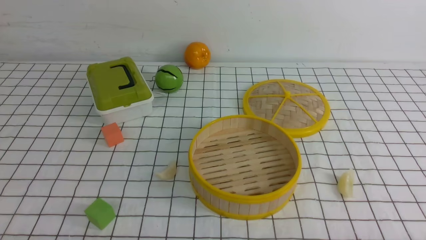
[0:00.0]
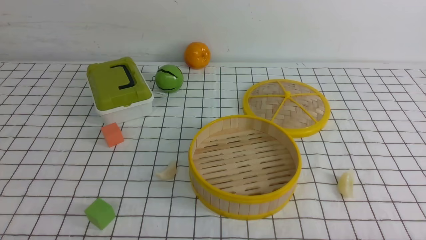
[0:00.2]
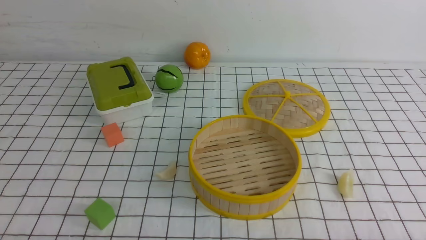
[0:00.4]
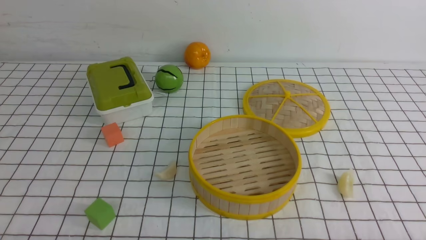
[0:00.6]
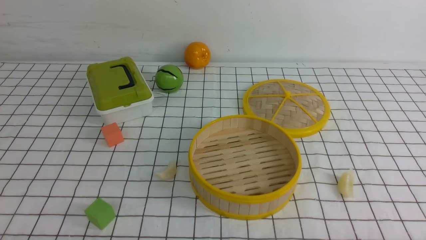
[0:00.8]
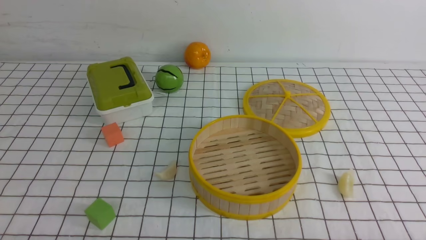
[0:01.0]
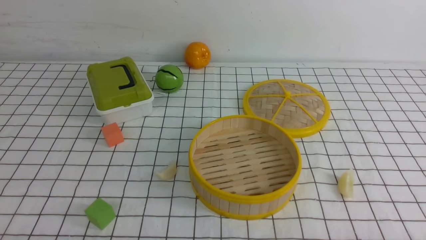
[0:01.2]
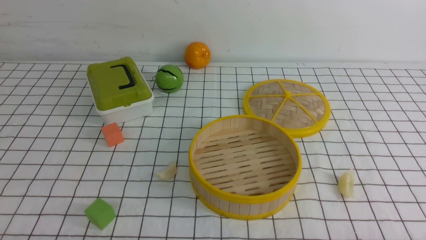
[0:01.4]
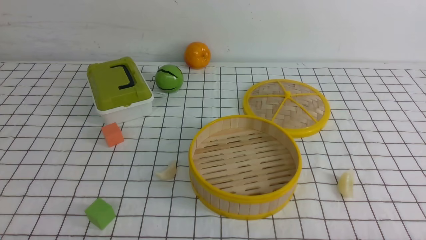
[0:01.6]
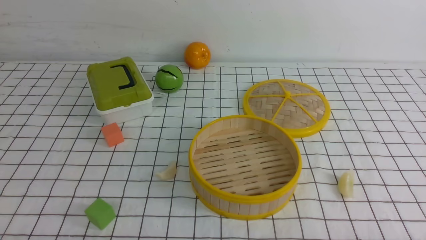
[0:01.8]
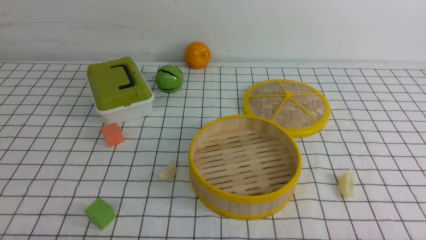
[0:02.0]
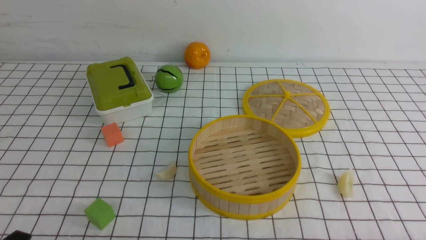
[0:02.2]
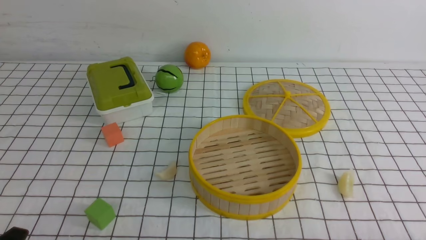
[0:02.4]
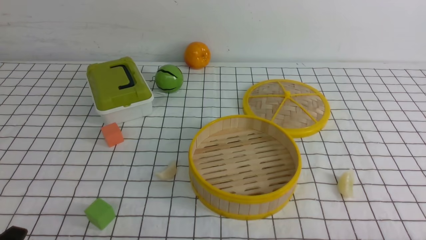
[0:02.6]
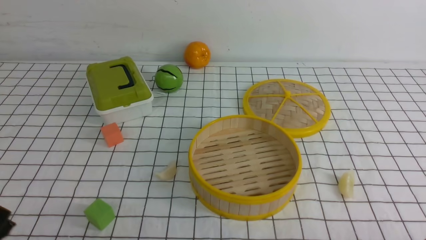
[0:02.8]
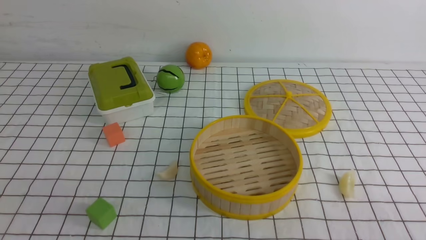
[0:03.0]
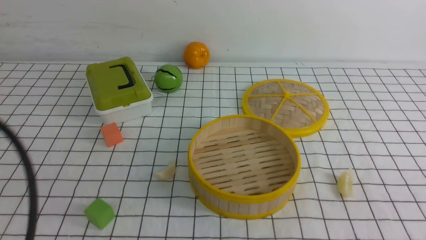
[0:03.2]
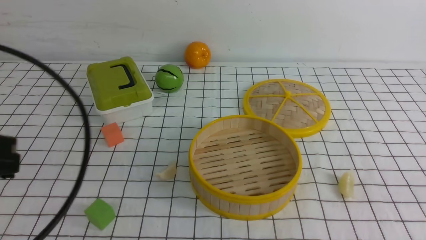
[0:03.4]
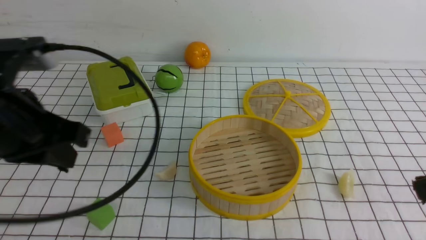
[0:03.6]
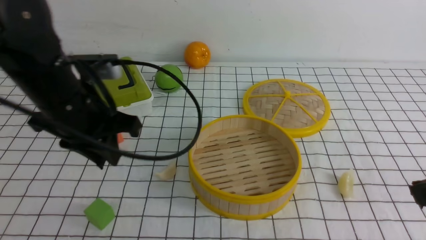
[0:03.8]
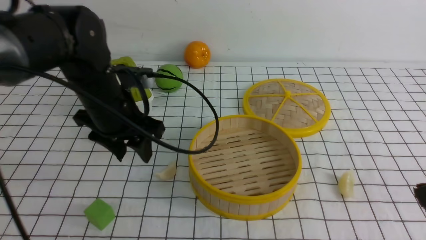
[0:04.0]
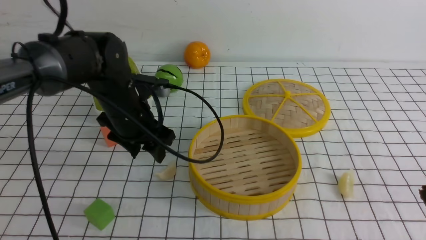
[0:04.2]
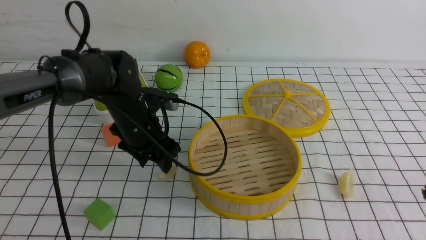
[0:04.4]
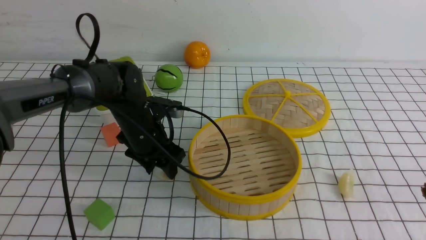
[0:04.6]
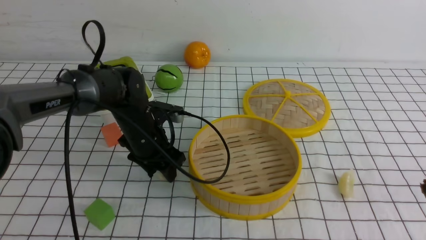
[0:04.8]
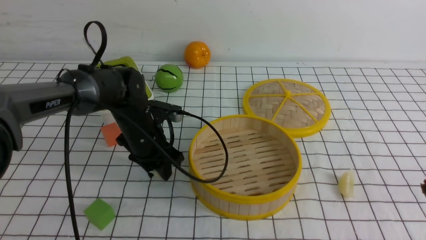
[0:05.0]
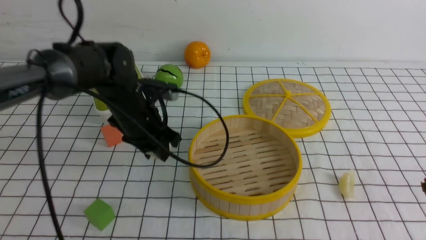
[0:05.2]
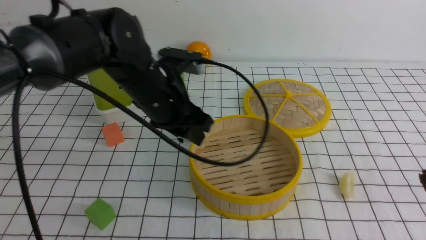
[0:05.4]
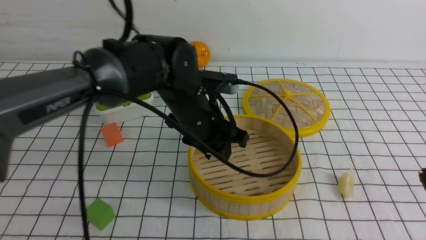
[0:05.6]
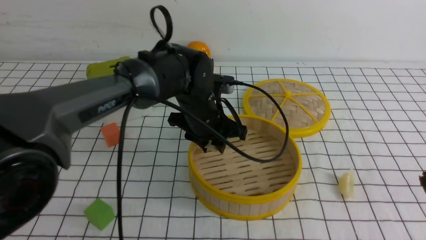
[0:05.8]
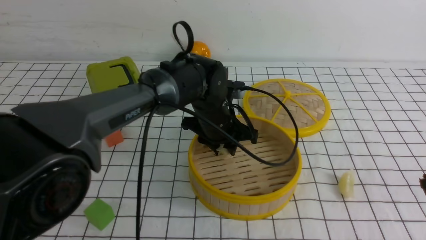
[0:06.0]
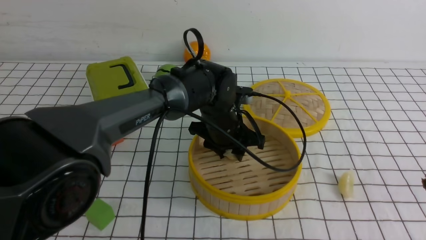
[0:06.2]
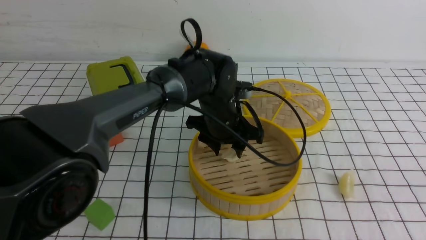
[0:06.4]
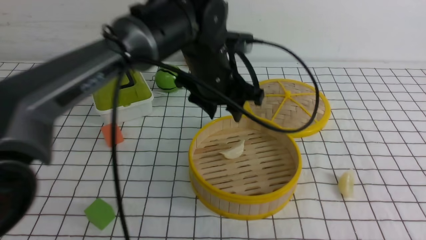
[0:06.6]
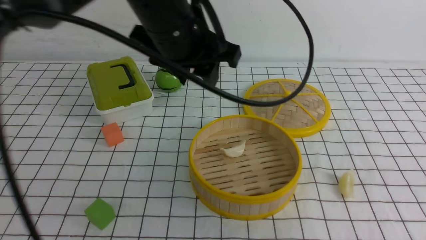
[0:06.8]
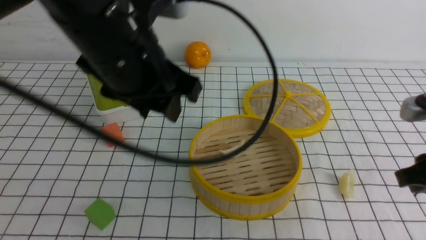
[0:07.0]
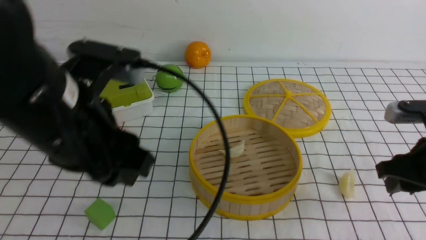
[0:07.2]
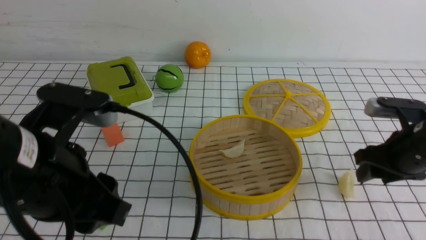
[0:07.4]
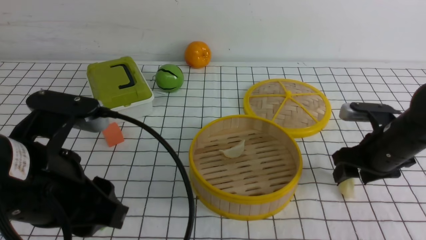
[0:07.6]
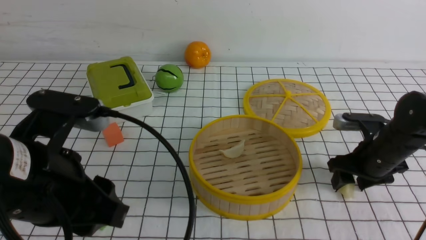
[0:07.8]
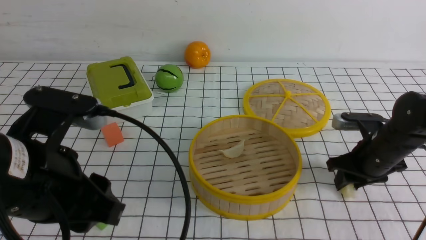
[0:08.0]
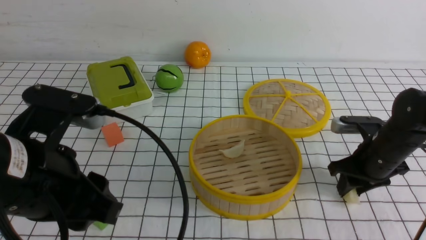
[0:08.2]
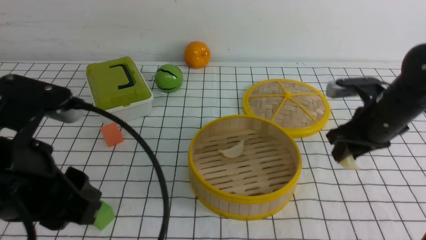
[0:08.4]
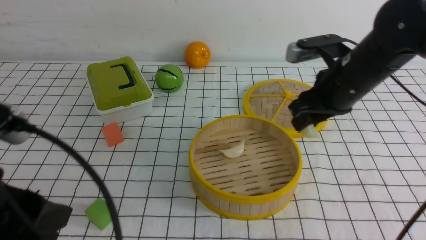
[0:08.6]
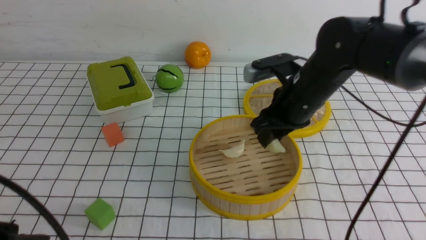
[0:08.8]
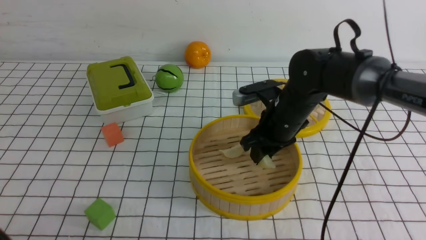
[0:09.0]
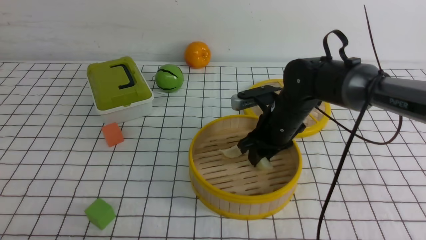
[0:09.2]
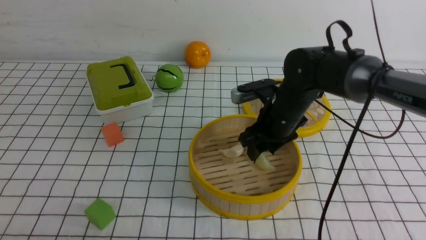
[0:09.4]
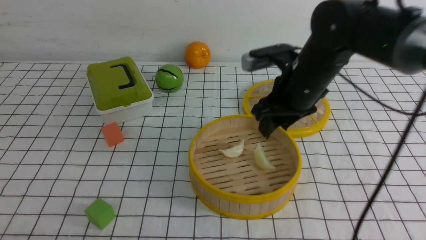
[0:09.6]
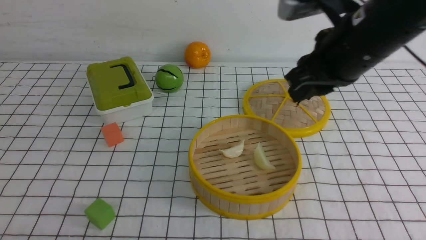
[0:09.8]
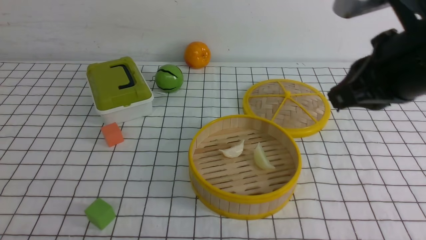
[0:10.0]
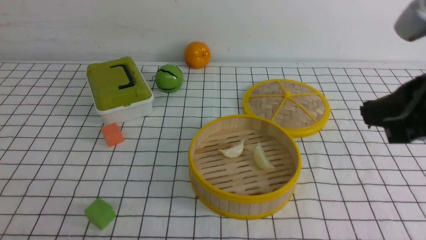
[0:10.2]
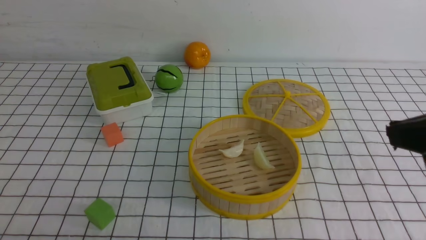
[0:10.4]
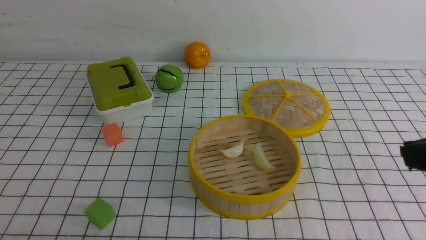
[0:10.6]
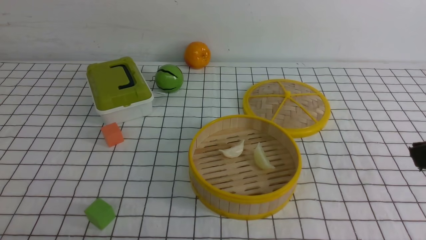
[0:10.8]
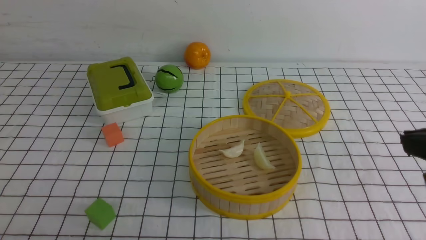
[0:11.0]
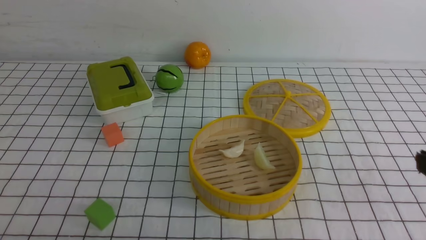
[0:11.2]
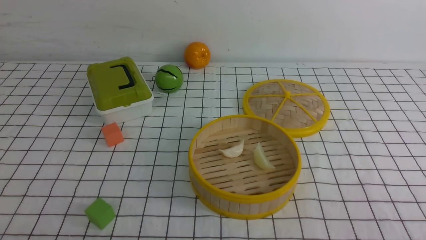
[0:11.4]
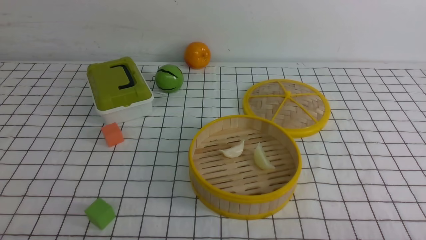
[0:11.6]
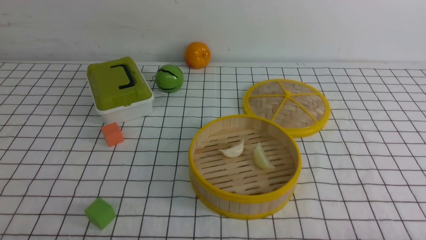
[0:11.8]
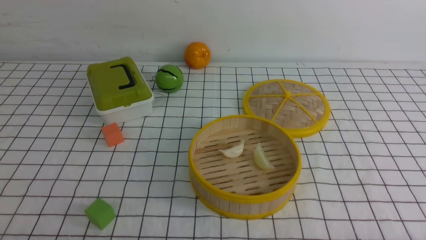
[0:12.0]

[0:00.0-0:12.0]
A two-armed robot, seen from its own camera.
Task of the whole recording: put the dumplings into the steamer on the table with the white tablecloth.
Step, 0:00.0 to 0:05.2: use the left arm to grab a dumpling.
Step, 0:05.4 to 0:07.0: use the left arm to put the dumpling into the steamer.
Step, 0:07.2 to 0:08.6: use the right arm to grab a dumpling.
Step, 0:09.0 to 0:09.8: use the right arm to put the dumpling into the steamer.
0:00.0 to 0:01.6: The two grippers keep their place.
0:01.6 to 0:03.0: The left gripper moves upward, some 15 cm.
0:03.0 to 0:04.4: The left gripper is displaced forward by approximately 35 cm, and opens its fingers. The right gripper moves upward and forward, about 10 cm.
0:04.4 to 0:06.0: The left gripper heads to the right, covering approximately 15 cm.
0:06.0 to 0:07.6: The right gripper heads forward and downward, covering about 25 cm, and opens, while the left gripper heads backward, to the left and upward, covering about 30 cm.
0:07.6 to 0:09.0: The right gripper is displaced to the left by approximately 15 cm. The left gripper heads backward and to the left, covering some 10 cm.
0:09.0 to 0:10.4: The right gripper heads backward, upward and to the right, covering roughly 30 cm, and closes its fingers.
0:10.4 to 0:12.0: The right gripper moves downward, backward and to the right, approximately 25 cm.

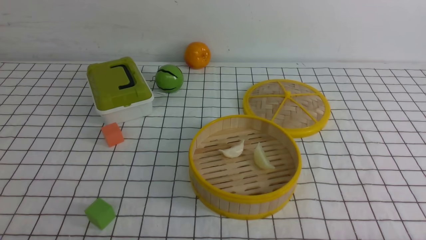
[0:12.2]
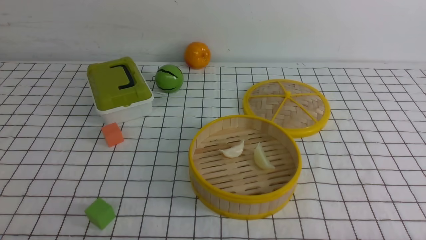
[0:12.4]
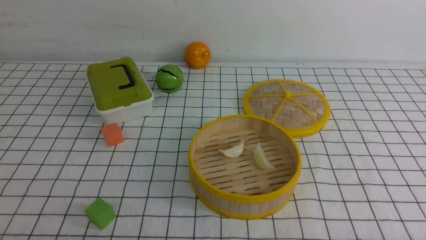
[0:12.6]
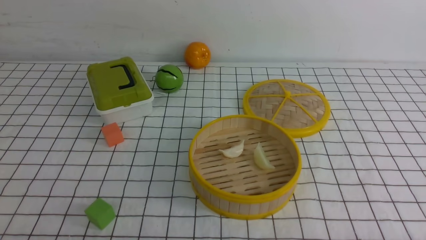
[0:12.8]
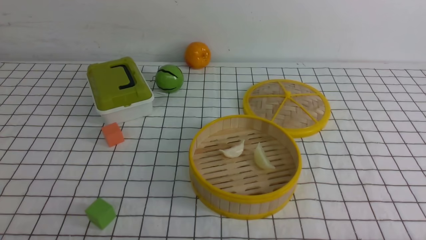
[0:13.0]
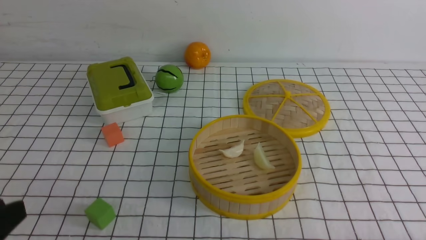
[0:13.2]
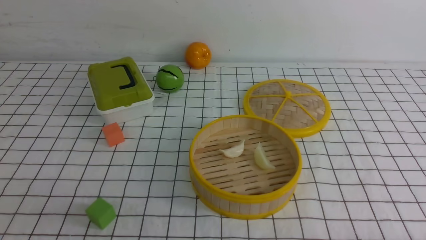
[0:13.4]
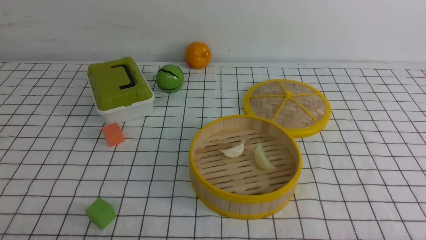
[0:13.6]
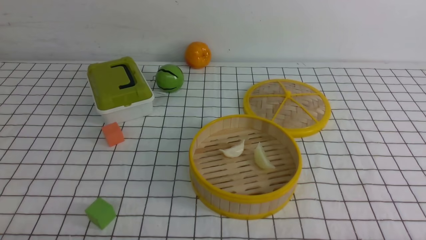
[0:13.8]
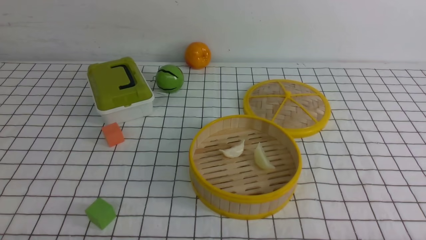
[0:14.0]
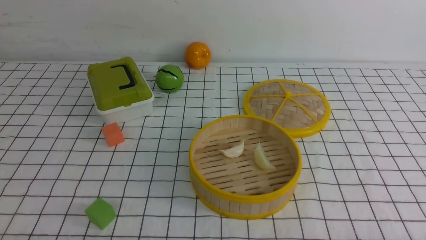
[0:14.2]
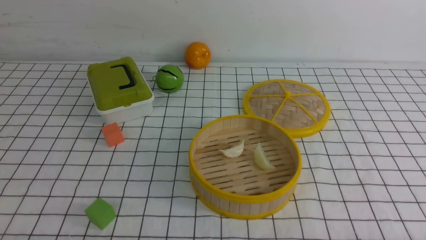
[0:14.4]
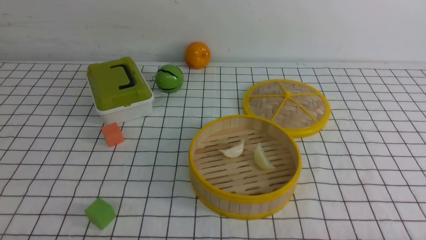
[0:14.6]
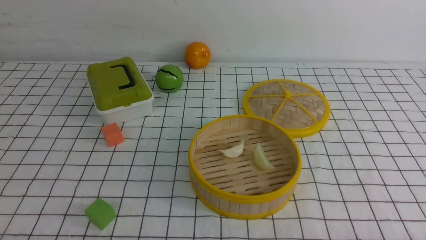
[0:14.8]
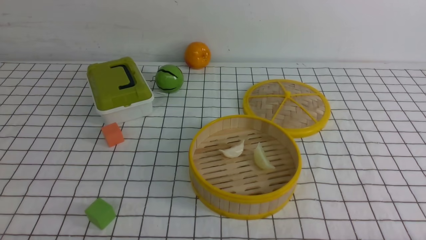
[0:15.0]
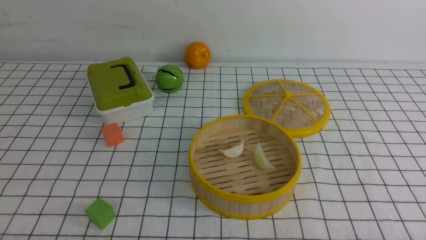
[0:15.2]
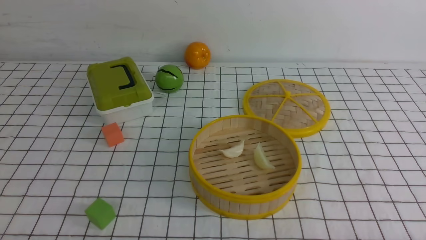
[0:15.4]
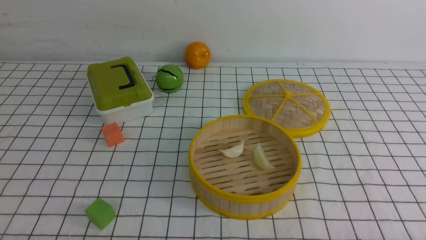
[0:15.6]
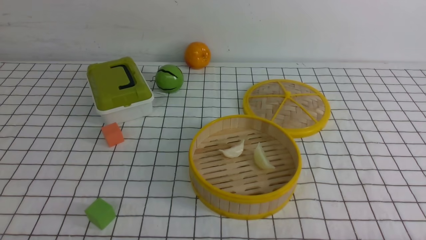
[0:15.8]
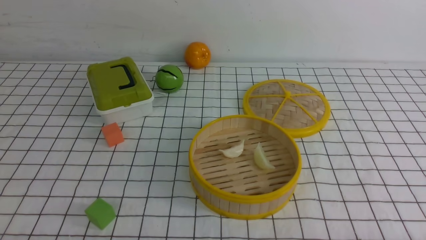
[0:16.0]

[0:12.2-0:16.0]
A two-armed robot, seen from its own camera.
Task of the whole recording: put the dumplings into the steamer on the table with the white tablecloth.
0:14.8 to 0:16.0: Neither gripper changes place.

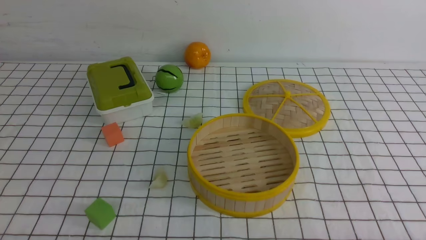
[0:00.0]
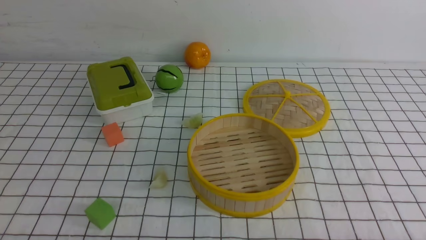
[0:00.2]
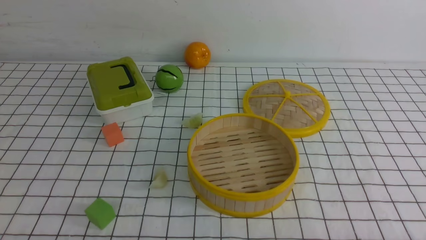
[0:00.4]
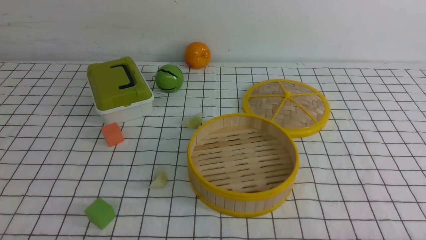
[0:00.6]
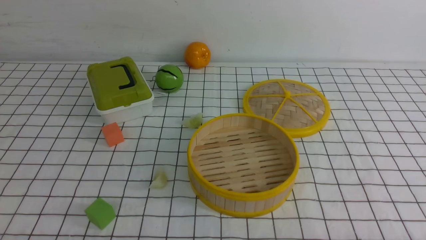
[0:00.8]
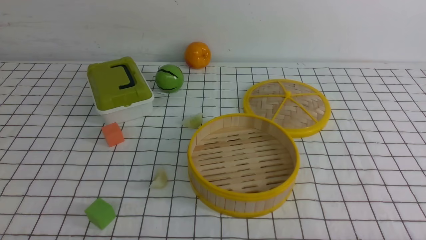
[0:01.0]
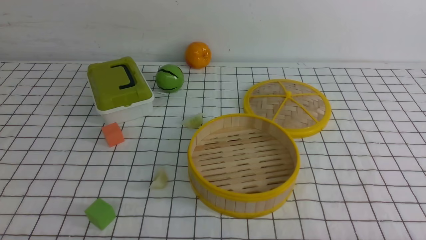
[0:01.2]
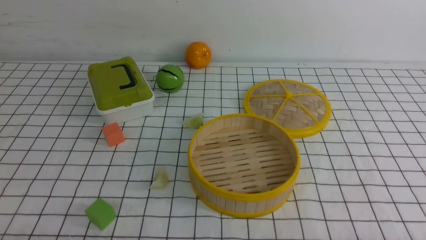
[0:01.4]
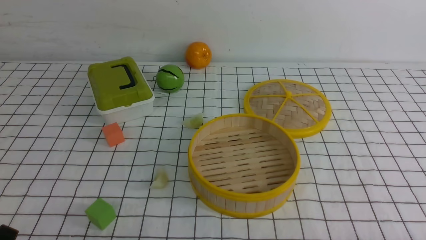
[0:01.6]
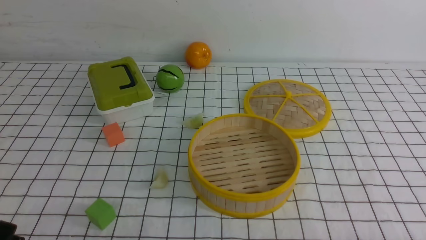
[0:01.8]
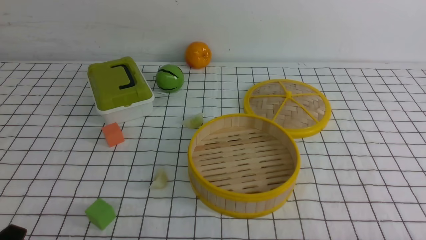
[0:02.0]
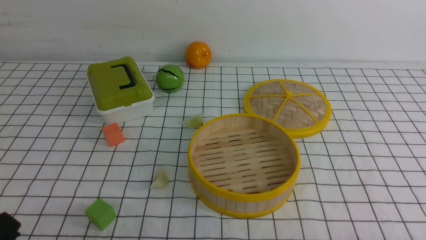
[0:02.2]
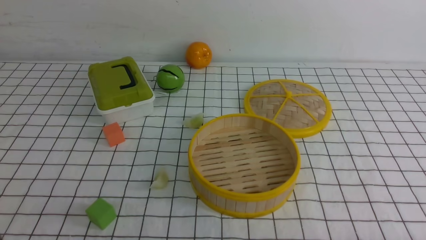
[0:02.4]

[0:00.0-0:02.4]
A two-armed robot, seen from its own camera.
Task of the whole recording: put the dumplings into the steamer on the table with the white tablecloth.
0:00.0 to 0:01.2: Both grippers stay put.
